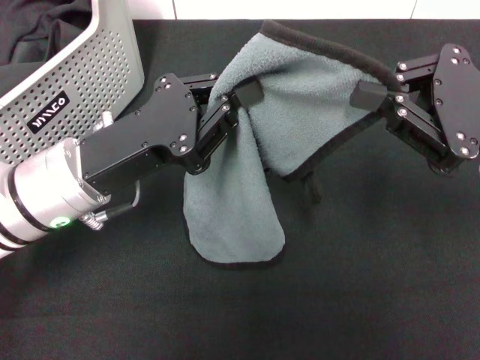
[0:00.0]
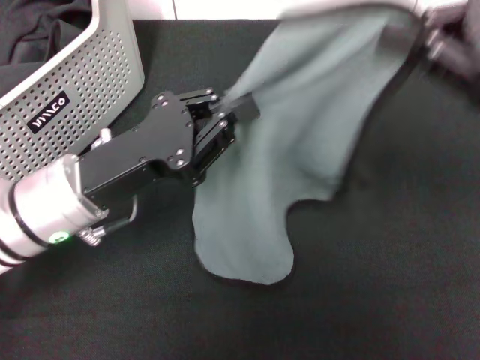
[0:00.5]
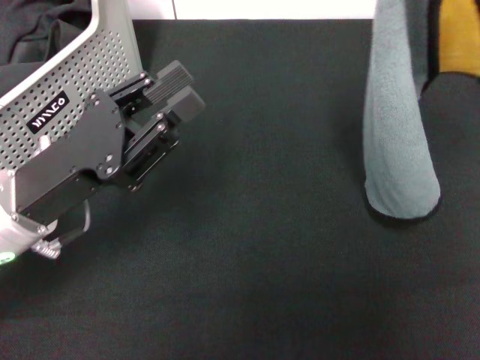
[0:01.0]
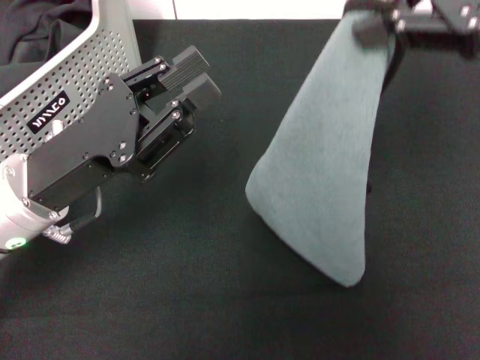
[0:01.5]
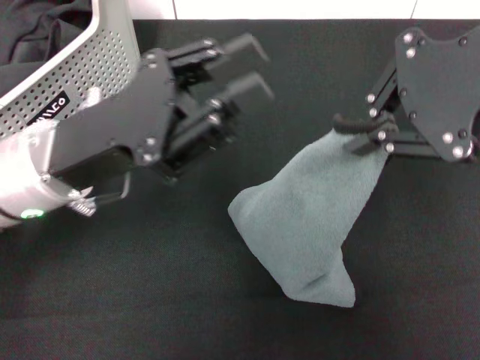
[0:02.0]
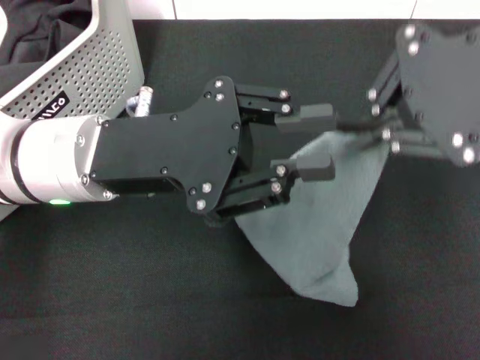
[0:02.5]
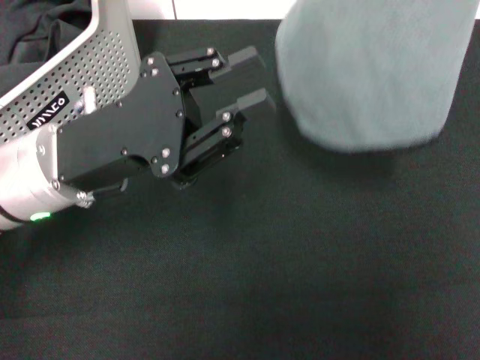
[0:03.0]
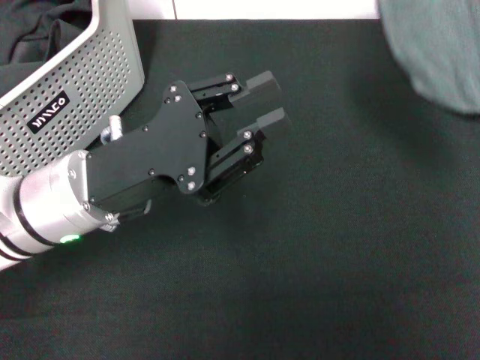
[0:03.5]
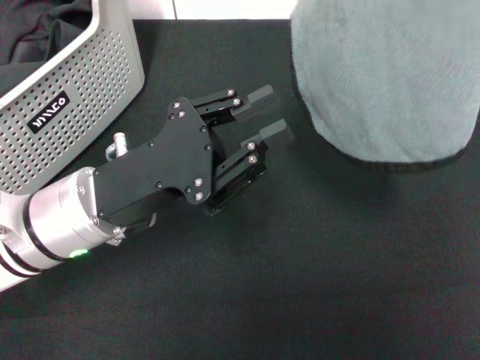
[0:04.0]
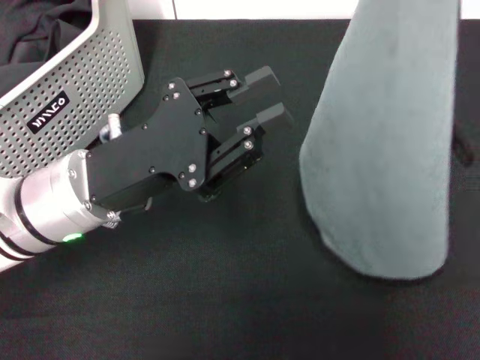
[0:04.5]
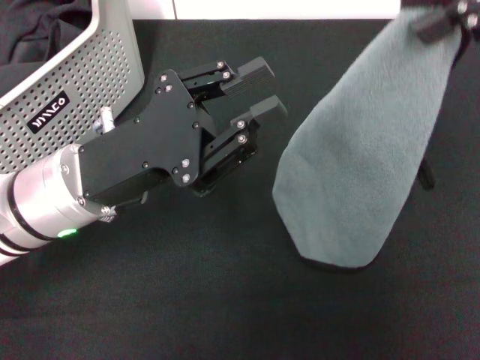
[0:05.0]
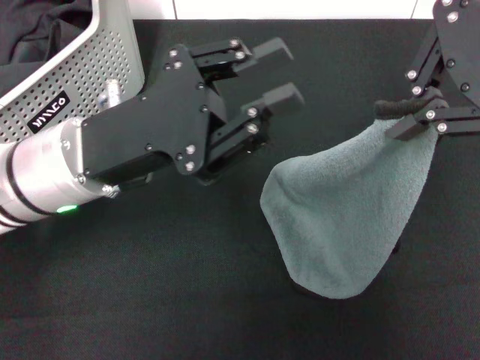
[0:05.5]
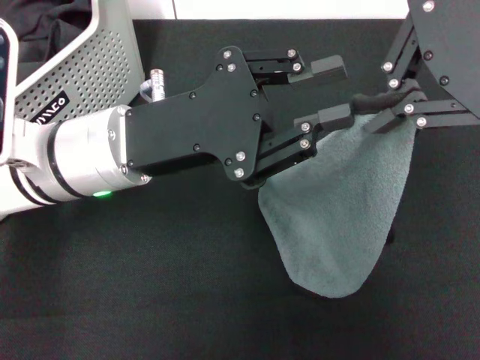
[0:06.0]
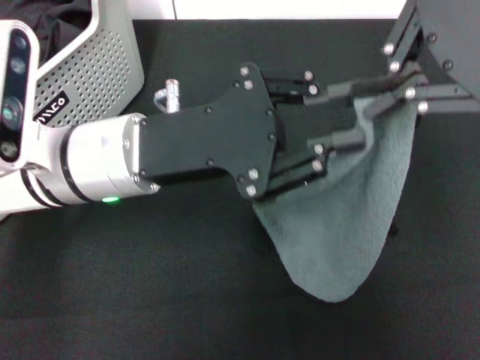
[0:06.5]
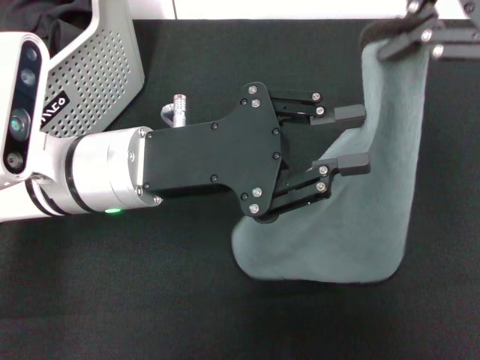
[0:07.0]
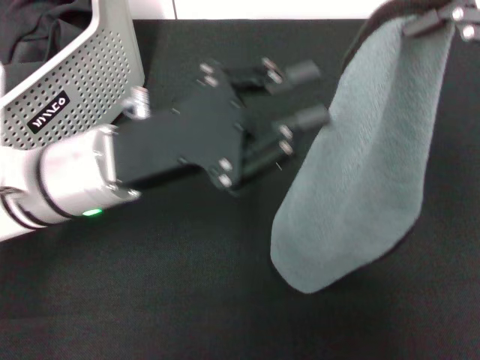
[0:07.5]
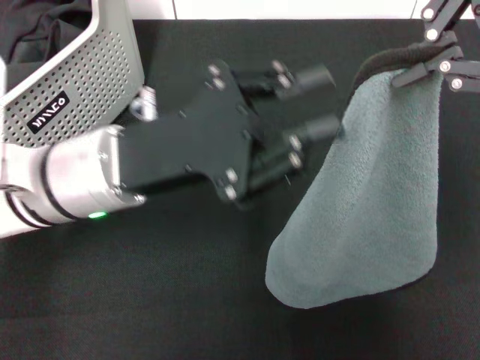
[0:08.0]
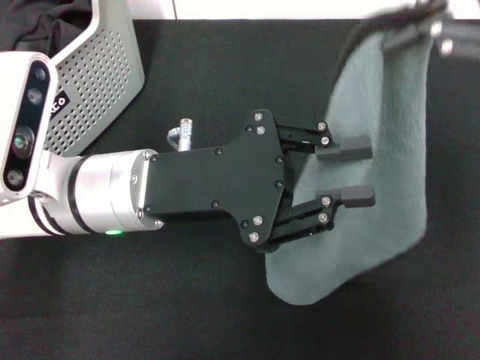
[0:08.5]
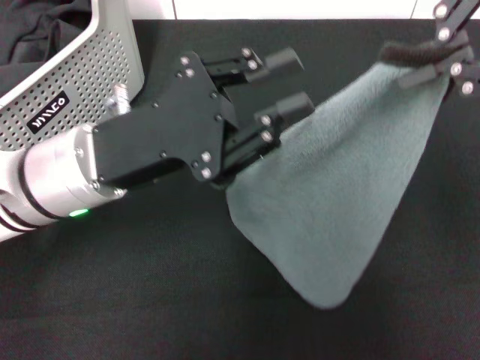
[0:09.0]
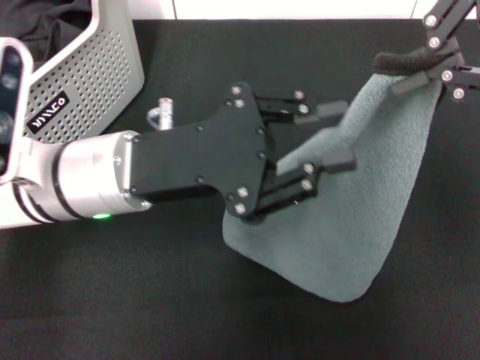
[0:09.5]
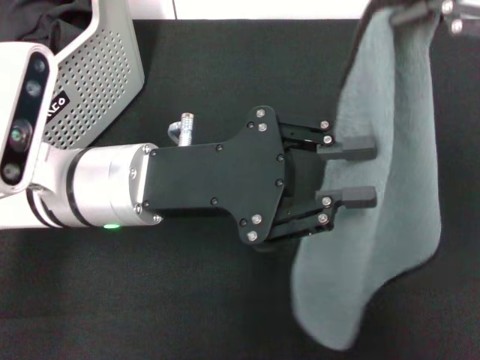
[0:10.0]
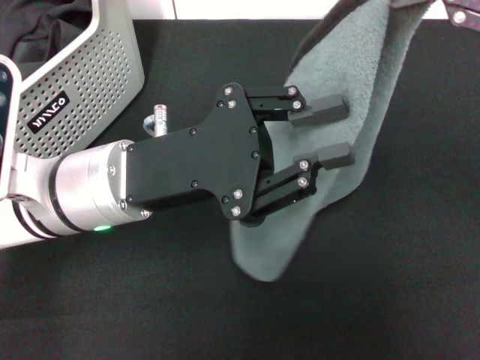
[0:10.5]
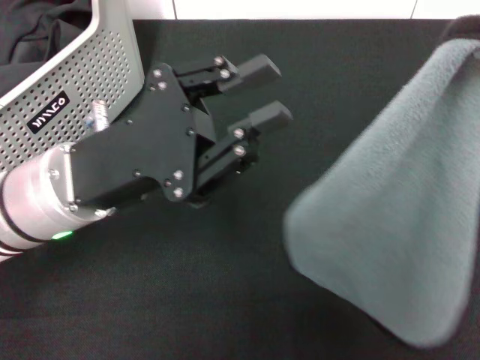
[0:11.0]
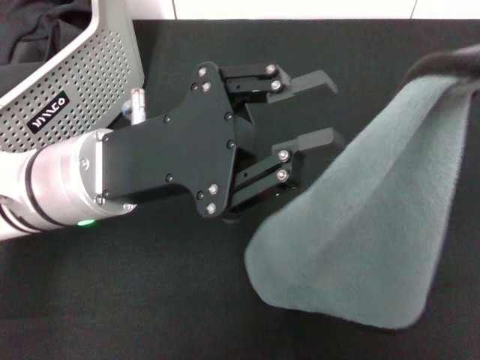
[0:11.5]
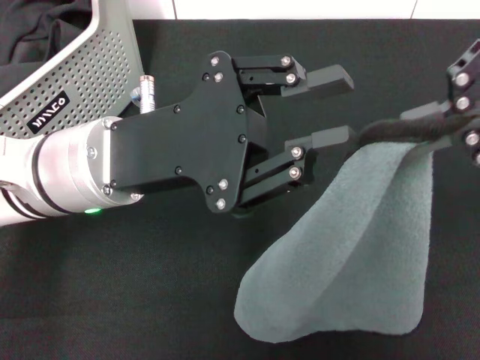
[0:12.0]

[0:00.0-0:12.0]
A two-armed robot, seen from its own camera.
Task of the whole recording: pick up the towel from the storage box and lay it flat on the black tablecloth.
0:00.0 to 0:02.0: The right gripper travels upward by approximately 15 cm.
0:02.0 to 0:04.0: The right gripper goes about 10 cm to the right and upward.
0:04.0 to 0:06.0: The left gripper changes place by some 5 cm; the right gripper travels to the left by some 10 cm.
0:10.0 to 0:12.0: The right gripper moves approximately 5 cm.

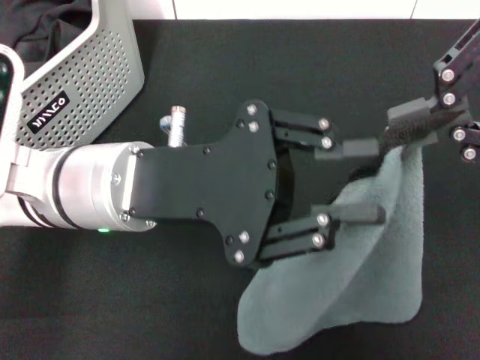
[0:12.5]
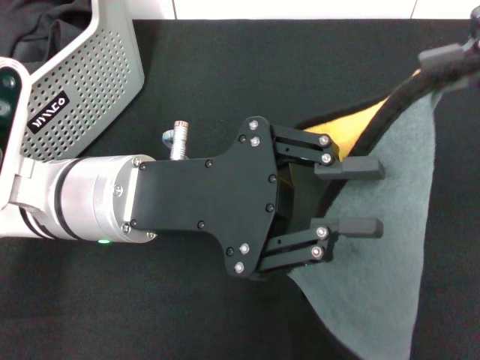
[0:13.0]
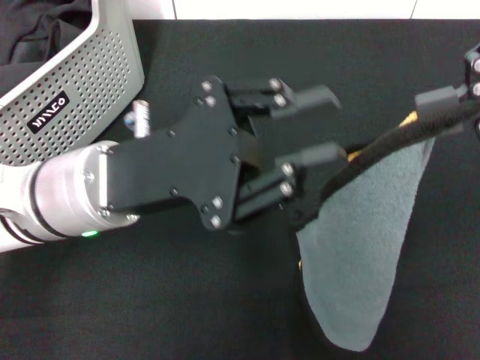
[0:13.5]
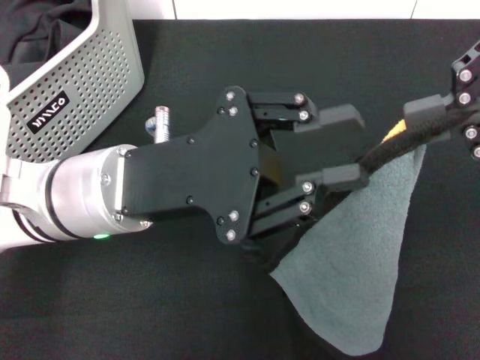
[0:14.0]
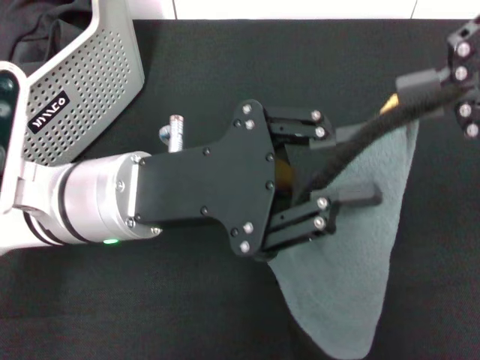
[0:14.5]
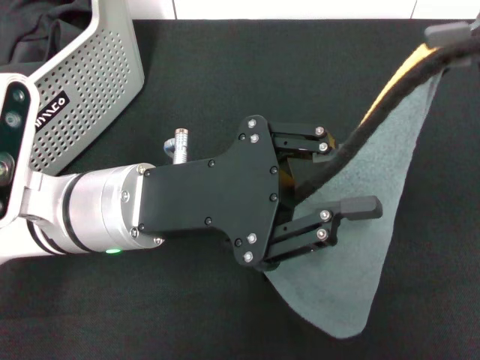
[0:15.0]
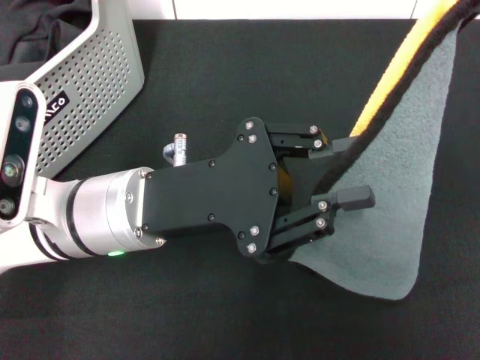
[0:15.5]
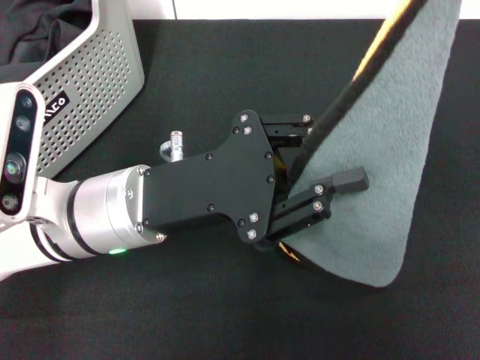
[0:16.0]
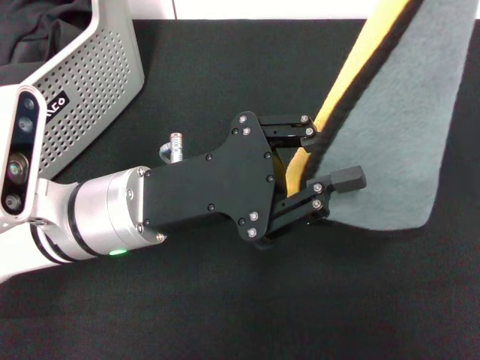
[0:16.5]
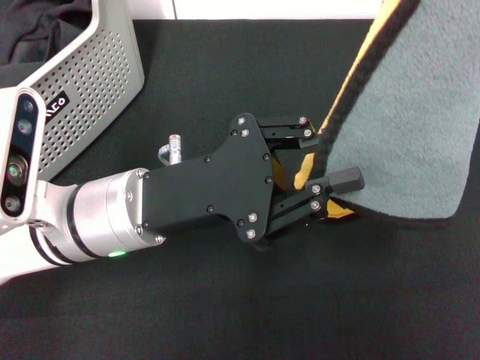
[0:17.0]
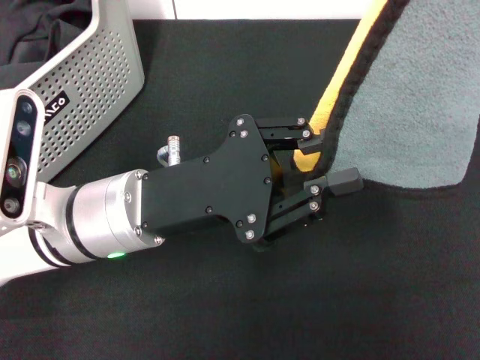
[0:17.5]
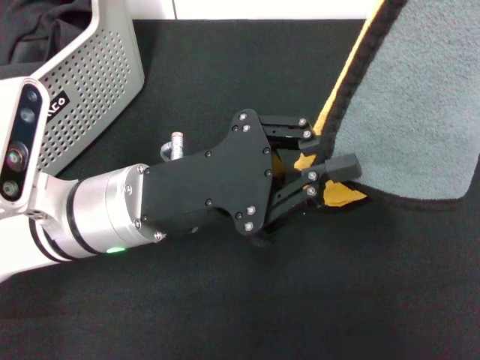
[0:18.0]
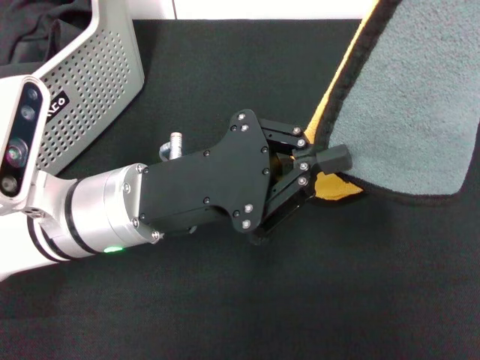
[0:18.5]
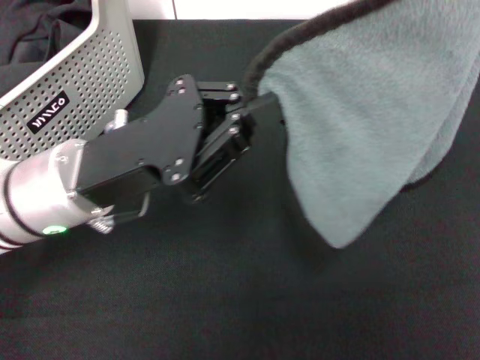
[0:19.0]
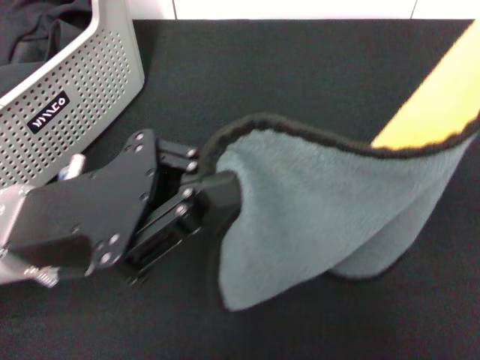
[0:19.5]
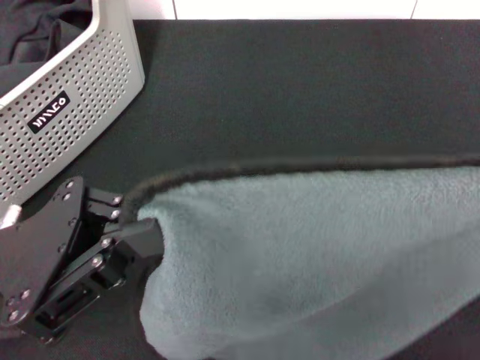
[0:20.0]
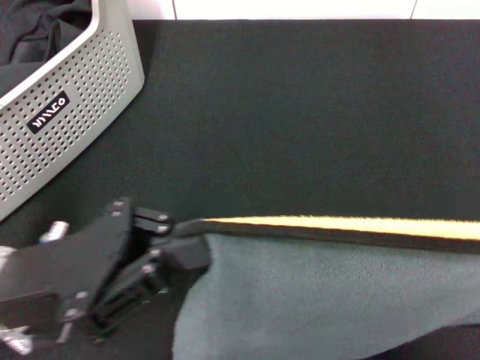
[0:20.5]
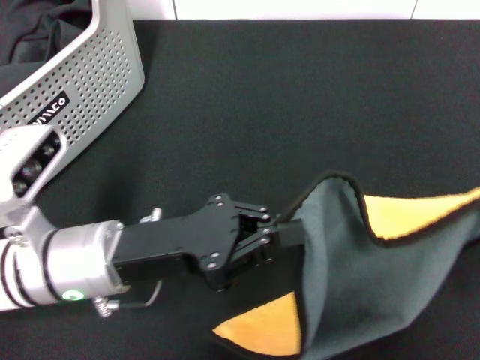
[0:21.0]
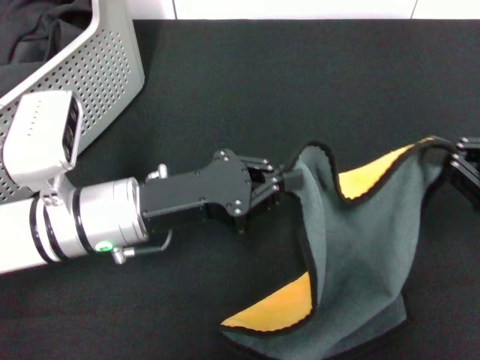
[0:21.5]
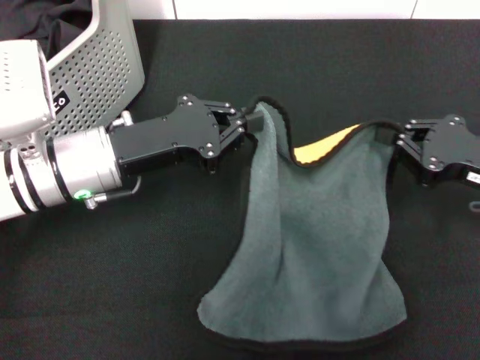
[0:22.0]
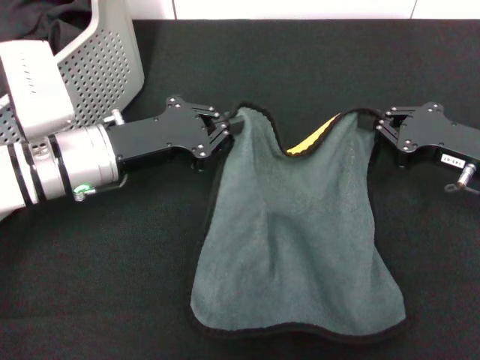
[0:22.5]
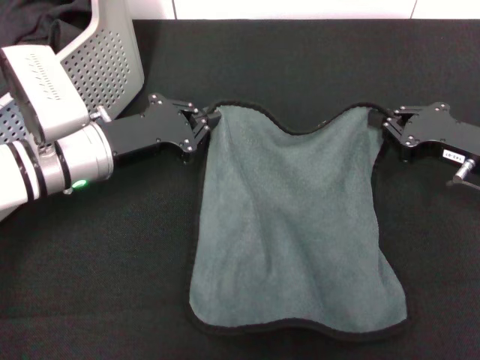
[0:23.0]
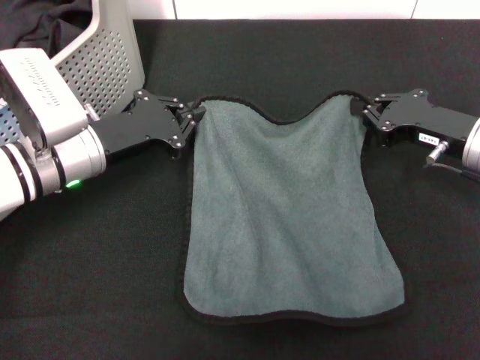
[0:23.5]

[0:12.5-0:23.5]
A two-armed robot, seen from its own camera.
Task of the whole recording: pick up the towel from the storage box and lay it flat on the black tablecloth.
0:16.0 to 0:18.0: The grippers make only small movements.
0:18.0 to 0:20.0: The right gripper is displaced backward and downward by about 20 cm; the left gripper is displaced to the left and backward by some 10 cm.
0:20.0 to 0:21.5: The right gripper is displaced downward and forward by roughly 20 cm. Meanwhile the left gripper travels forward, to the right and downward by about 15 cm.
0:21.5 to 0:23.5: The right gripper shifts some 10 cm forward and to the left. Meanwhile the left gripper moves forward and to the left, some 10 cm.

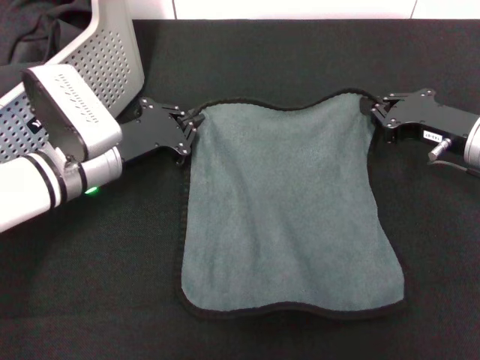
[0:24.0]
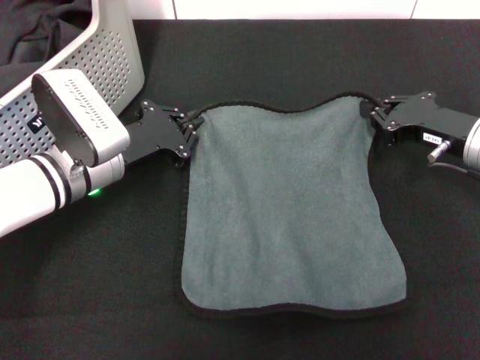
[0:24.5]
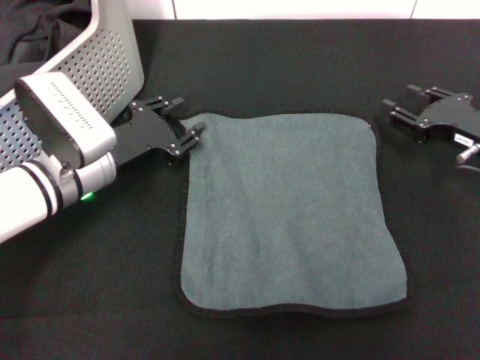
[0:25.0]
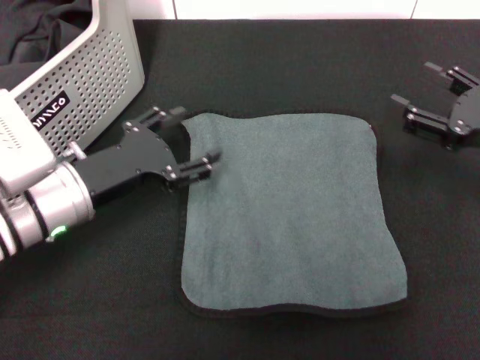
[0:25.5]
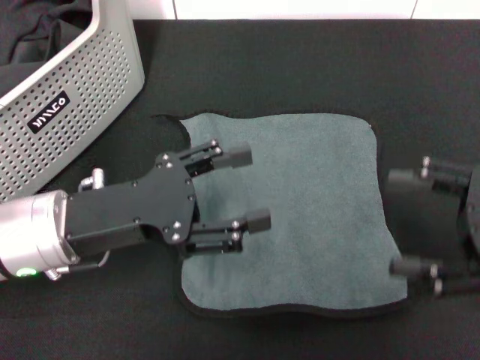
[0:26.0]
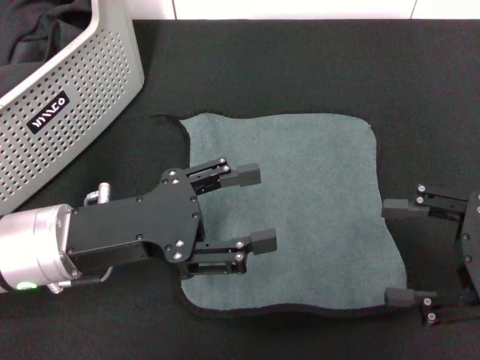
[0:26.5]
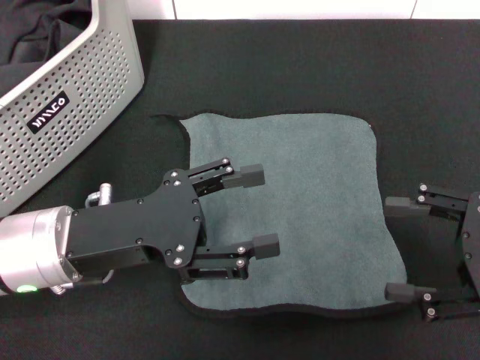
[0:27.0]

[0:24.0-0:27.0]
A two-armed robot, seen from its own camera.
Task of the whole recording: pick up the towel from the storage box and lay it flat on the black tablecloth.
0:24.0 to 0:25.5: Both grippers move backward, some 5 cm. The left gripper opens. Meanwhile the right gripper opens up.
0:25.5 to 0:27.0: The right gripper shifts some 10 cm backward, while the left gripper changes place by roughly 5 cm.
